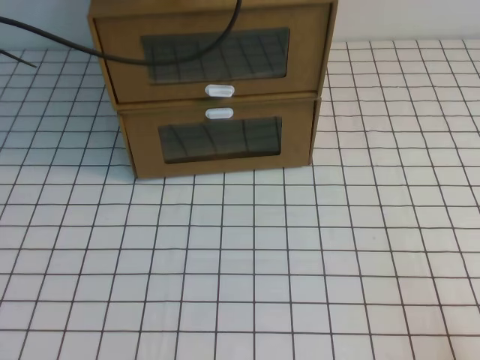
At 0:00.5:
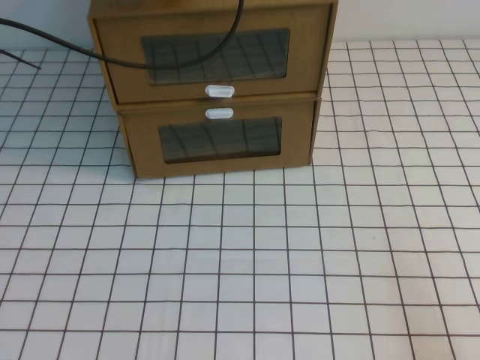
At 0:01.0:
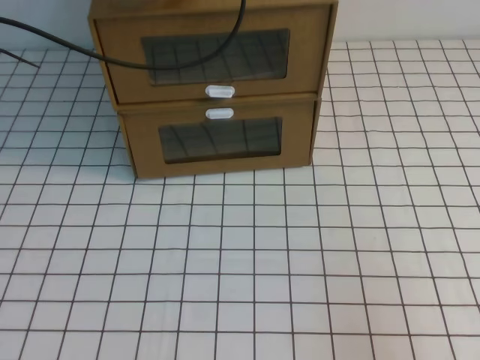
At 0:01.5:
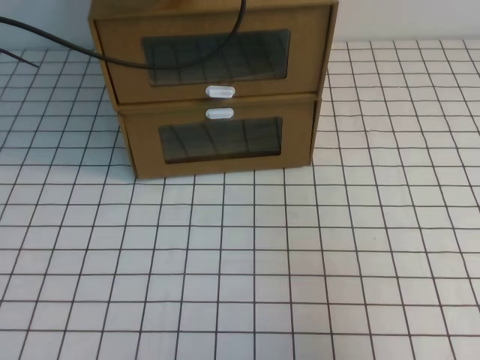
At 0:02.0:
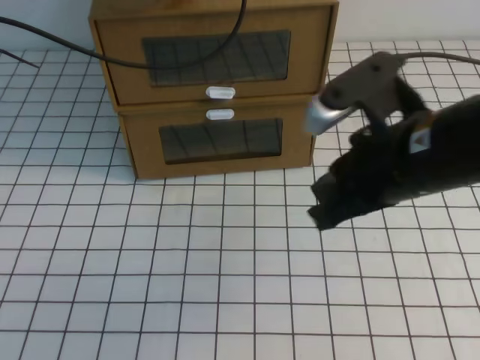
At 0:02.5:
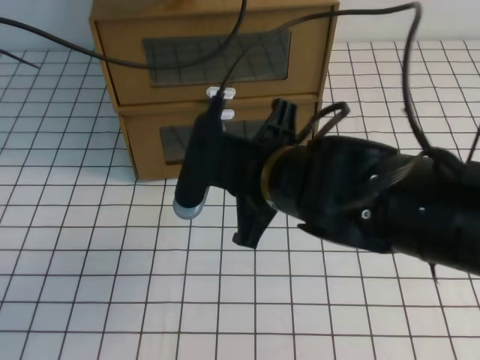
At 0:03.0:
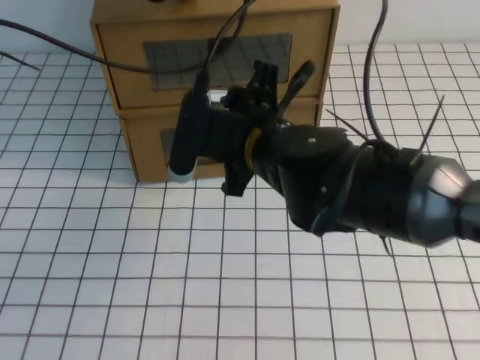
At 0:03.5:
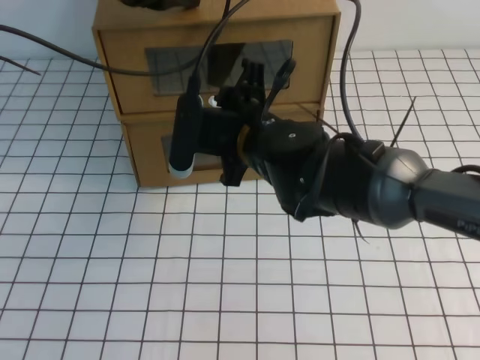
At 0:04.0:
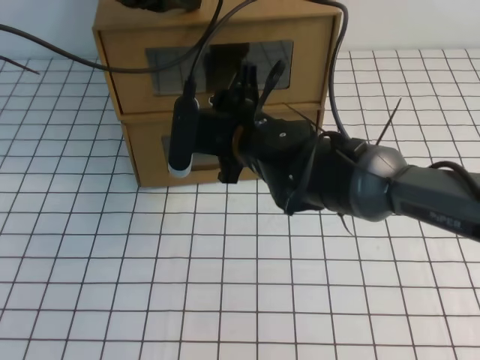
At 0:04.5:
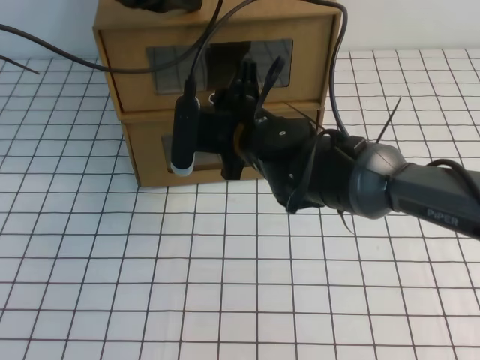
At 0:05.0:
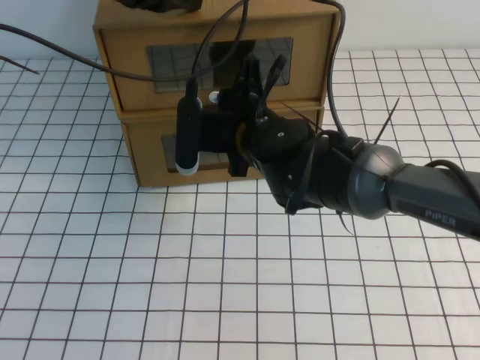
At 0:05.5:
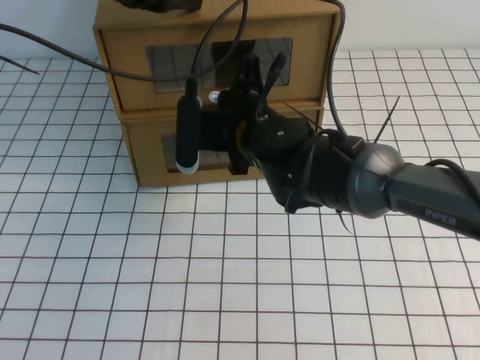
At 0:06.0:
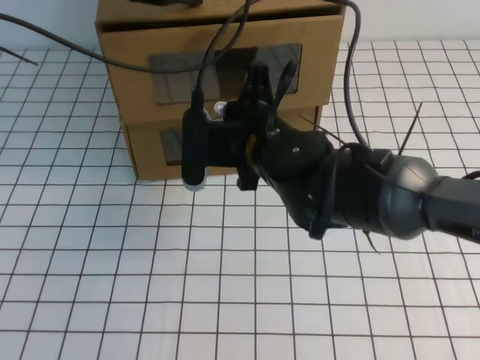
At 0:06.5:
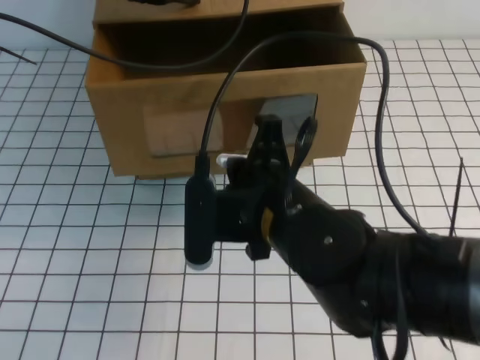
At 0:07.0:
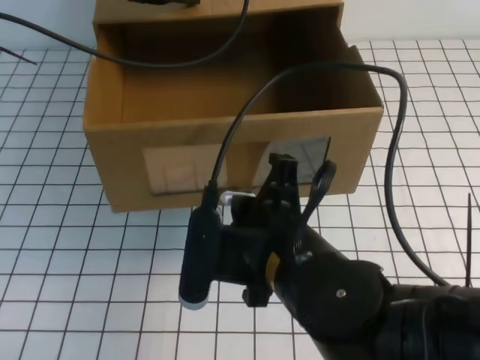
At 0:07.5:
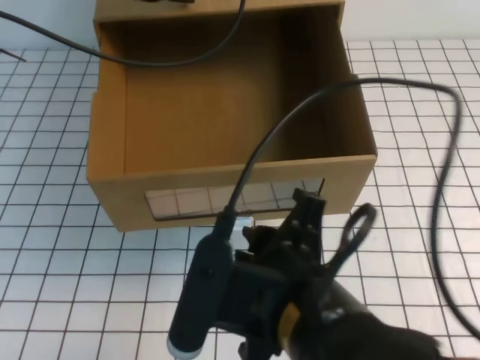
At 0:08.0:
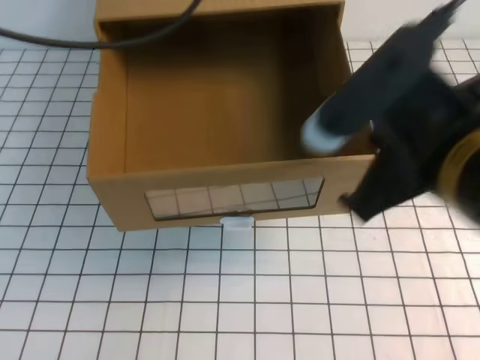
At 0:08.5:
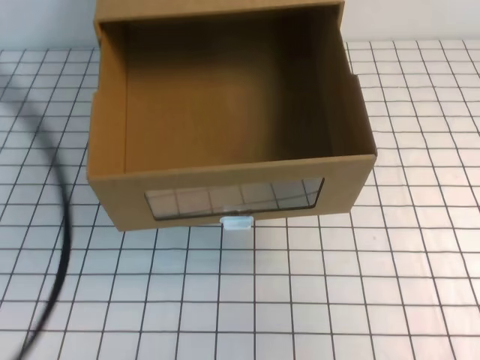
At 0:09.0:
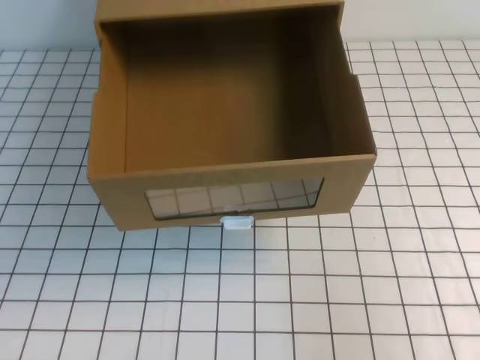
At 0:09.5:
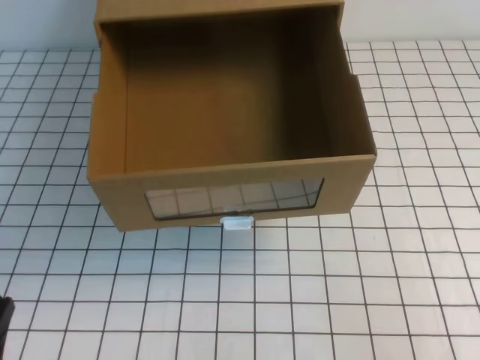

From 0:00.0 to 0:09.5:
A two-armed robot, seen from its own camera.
Task of the whole recording: open the shoebox on the white tablecloth.
From 0:00.0 to 0:02.0: The right gripper heads forward, to the left and upward, covering about 30 cm.
From 0:02.0 to 0:04.0: The right gripper goes approximately 20 cm to the left, forward and downward, and opens.
From 0:04.0 to 0:05.5: The right gripper closes.
From 0:05.5 to 0:07.5: The right gripper travels backward by about 20 cm, and opens.
From 0:07.5 to 0:09.5: The right gripper is displaced to the right by some 25 cm, and closes. Meanwhile the left gripper is displaced backward and downward by some 40 cm.

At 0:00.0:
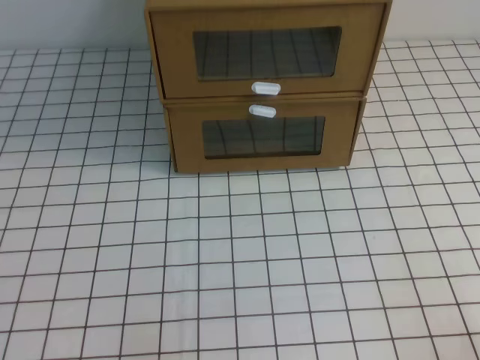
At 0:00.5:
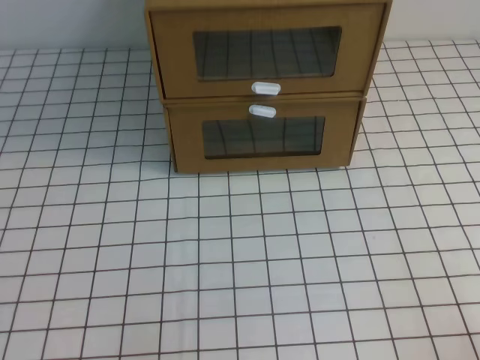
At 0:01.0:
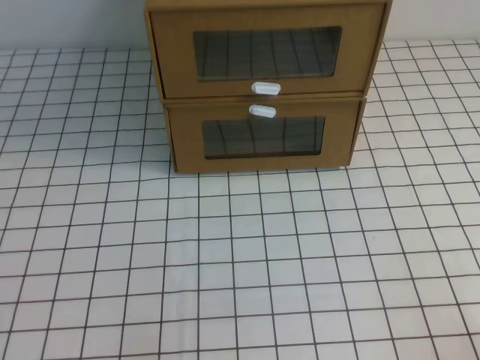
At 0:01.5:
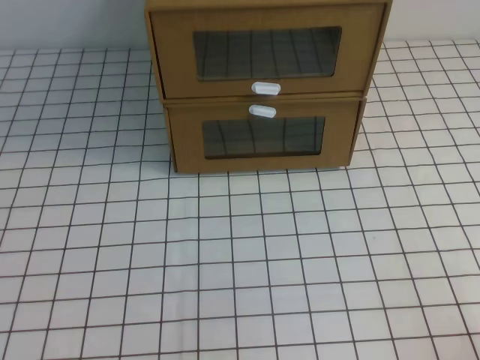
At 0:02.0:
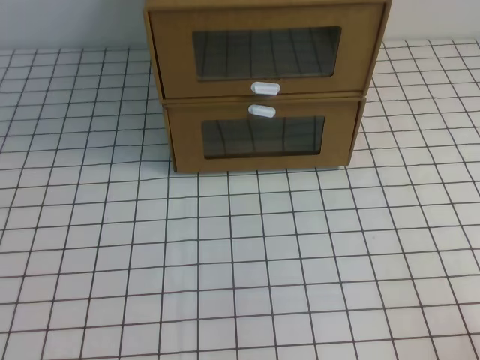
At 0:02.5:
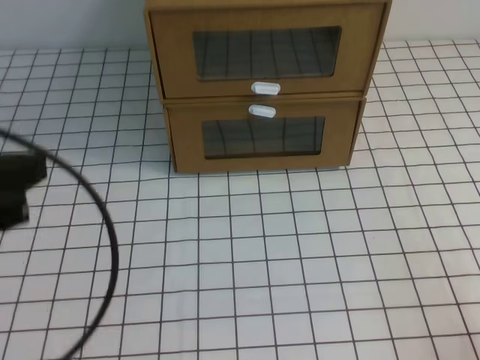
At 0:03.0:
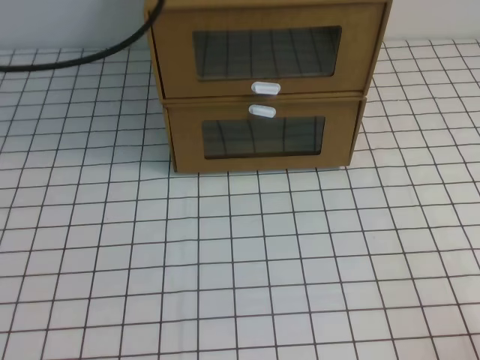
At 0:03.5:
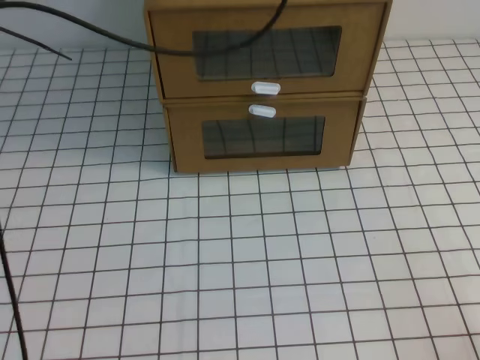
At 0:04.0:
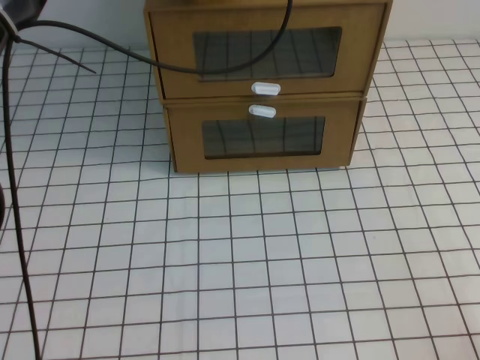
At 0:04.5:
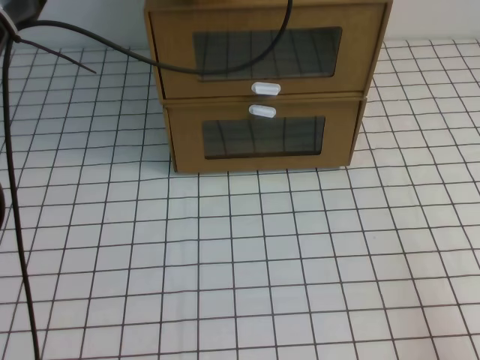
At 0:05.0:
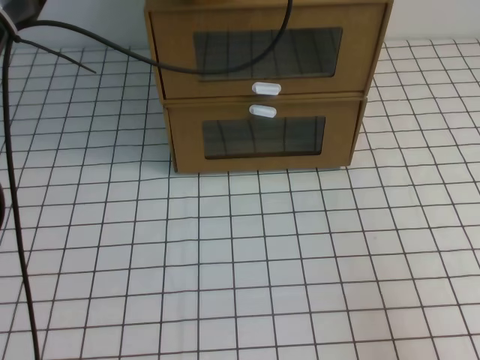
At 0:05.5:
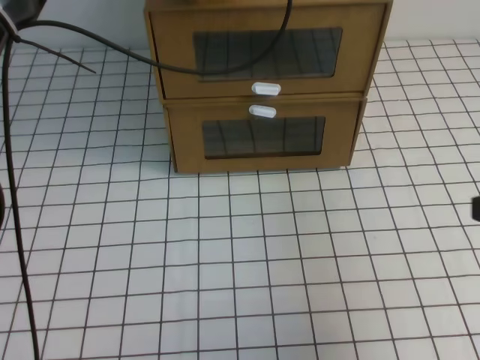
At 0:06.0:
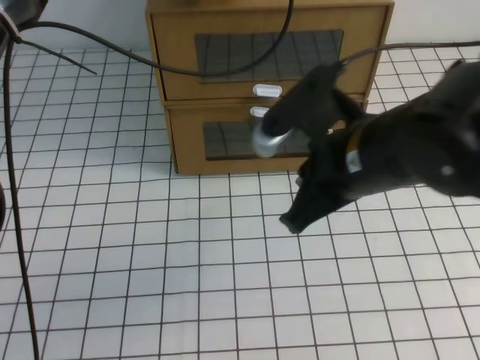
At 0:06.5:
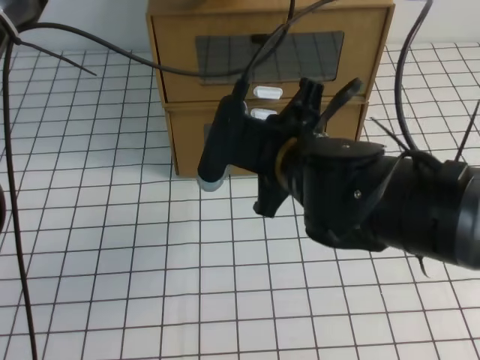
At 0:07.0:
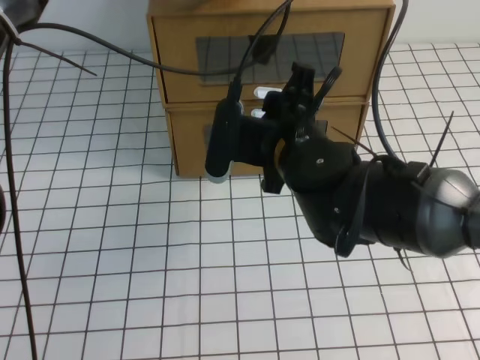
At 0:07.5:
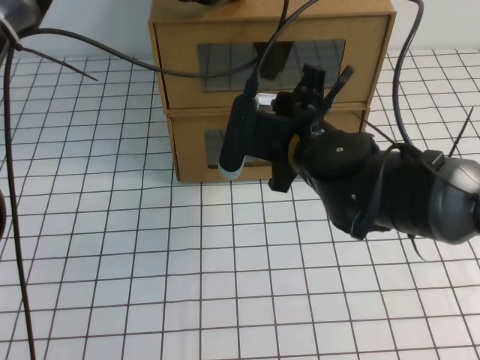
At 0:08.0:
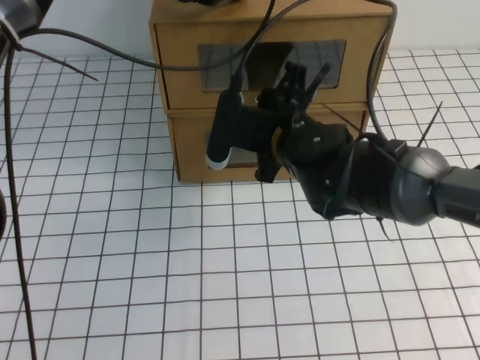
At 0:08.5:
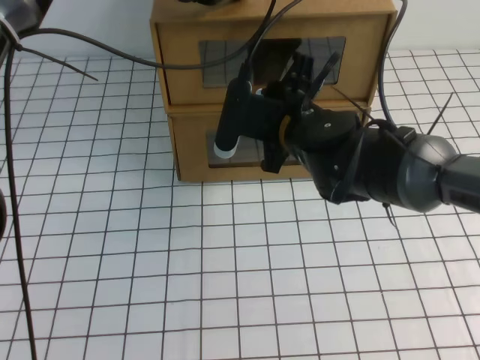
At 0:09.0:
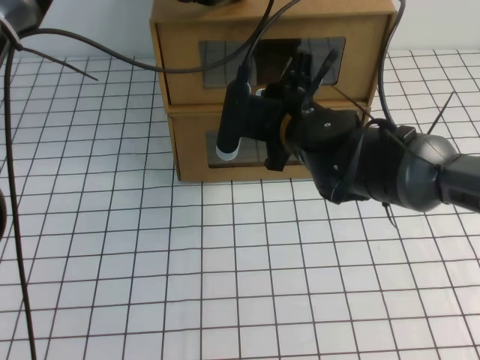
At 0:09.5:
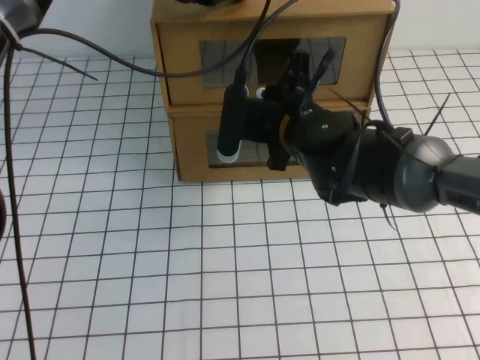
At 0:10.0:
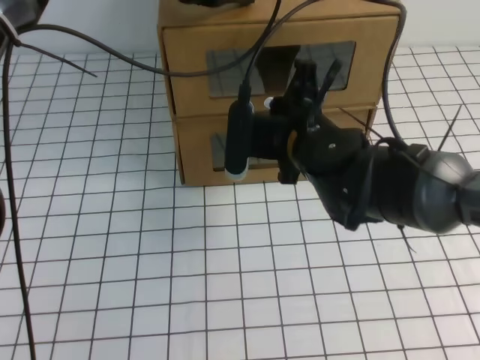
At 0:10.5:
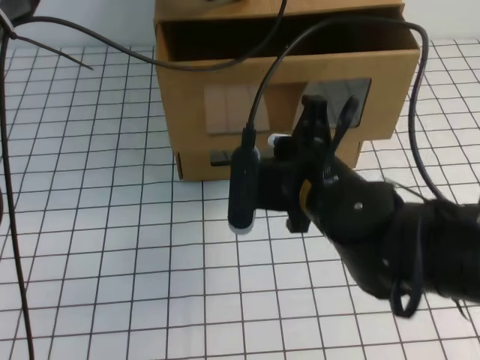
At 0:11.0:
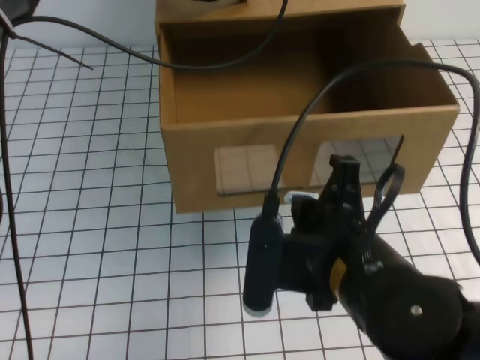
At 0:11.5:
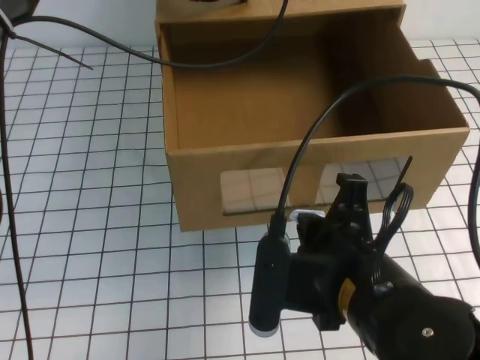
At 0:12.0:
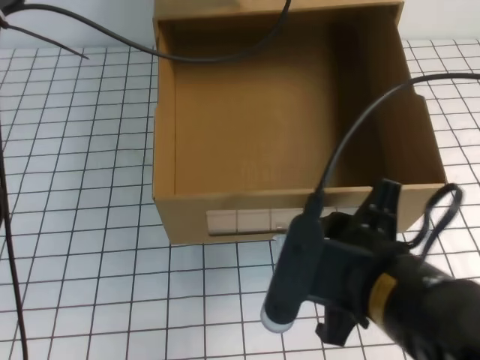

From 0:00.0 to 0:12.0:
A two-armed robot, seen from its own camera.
Task of the whole recording: open the shoebox on the white tablecloth.
From 0:02.0 to 0:04.0: The left gripper shifts approximately 50 cm forward, to the right and upward.
From 0:04.0 to 0:06.0: The right gripper is displaced to the left, forward and upward by approximately 30 cm.
From 0:06.0 to 0:08.0: The right gripper shifts some 15 cm forward, to the left and downward, and opens up.
From 0:08.0 to 0:10.0: The right gripper closes.
From 0:10.0 to 0:12.0: The right gripper heads backward, covering roughly 20 cm, and opens.

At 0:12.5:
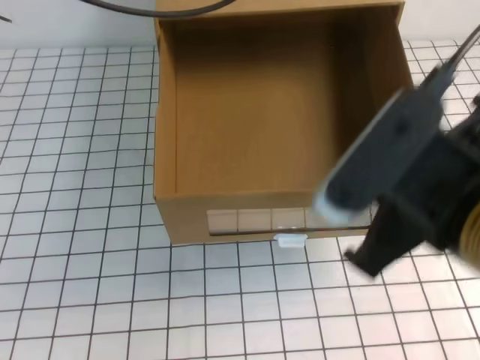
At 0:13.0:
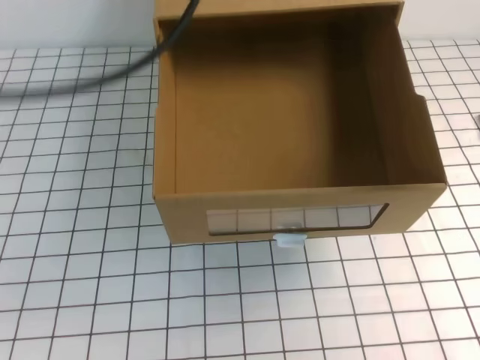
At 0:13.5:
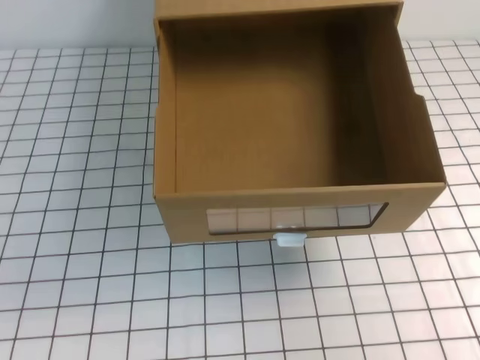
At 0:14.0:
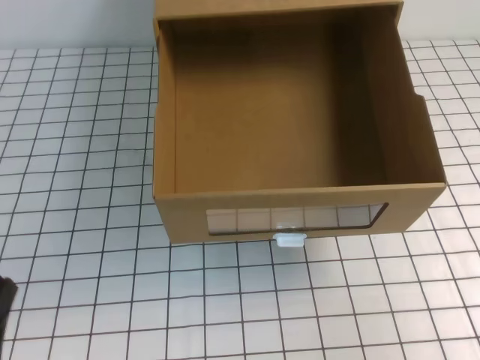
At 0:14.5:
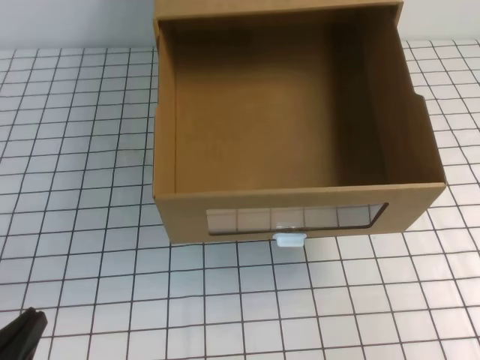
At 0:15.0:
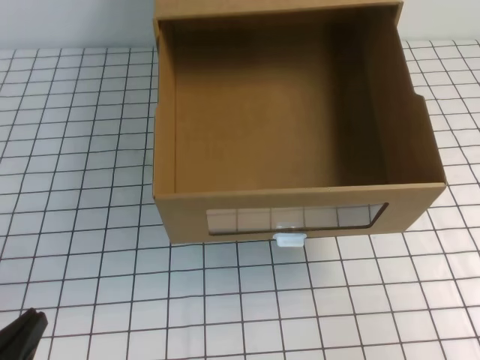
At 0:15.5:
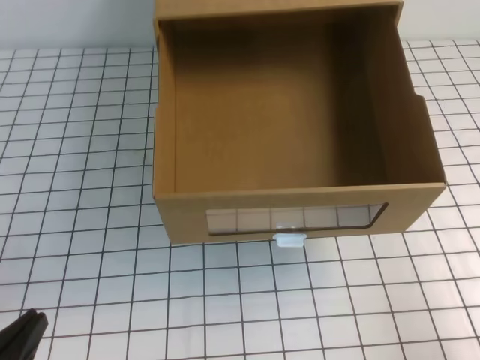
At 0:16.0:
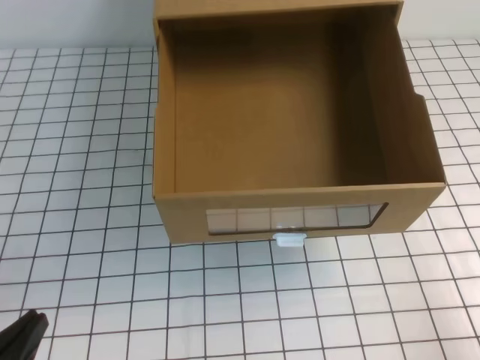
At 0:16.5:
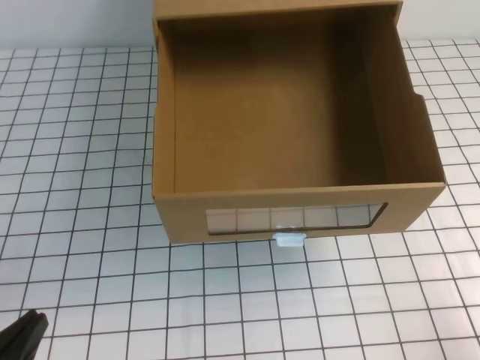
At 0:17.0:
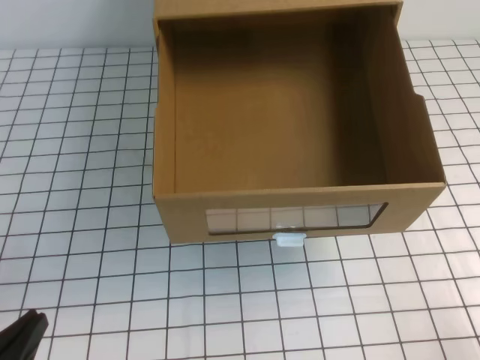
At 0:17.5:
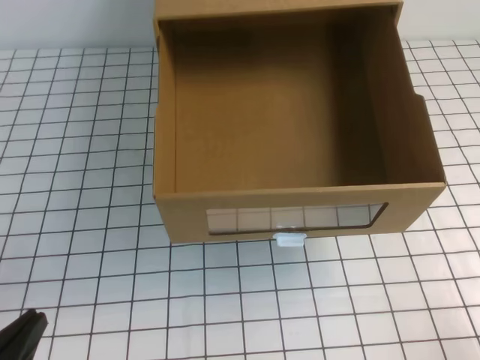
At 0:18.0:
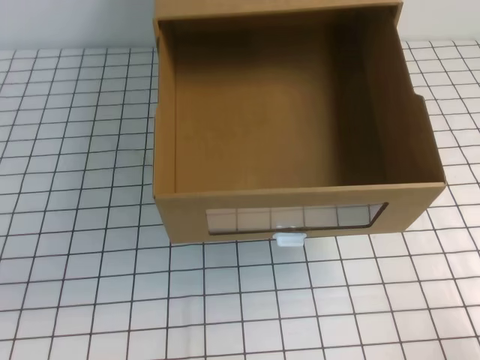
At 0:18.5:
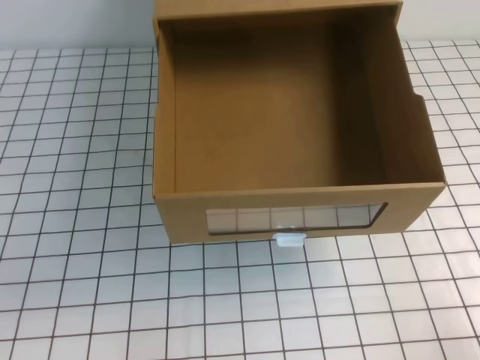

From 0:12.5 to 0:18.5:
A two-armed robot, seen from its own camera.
Task of the whole recording: open the shoebox on the white tablecloth.
Step, from 0:12.5 to 0:18.5: Open the shoe box.
From 0:12.5 to 0:14.5: The right gripper shifts some 15 cm to the right, while the left gripper moves downward, backward and to the left, about 50 cm.
From 0:14.5 to 0:16.5: The right gripper travels downward by approximately 10 cm.
